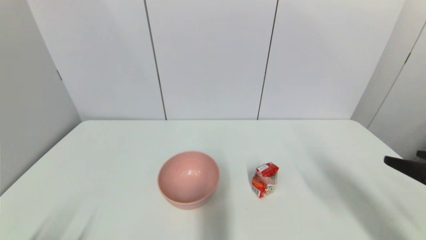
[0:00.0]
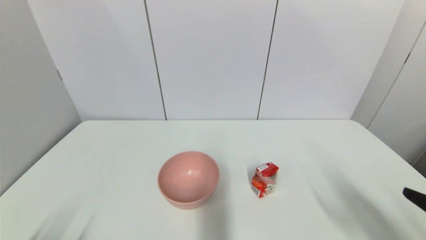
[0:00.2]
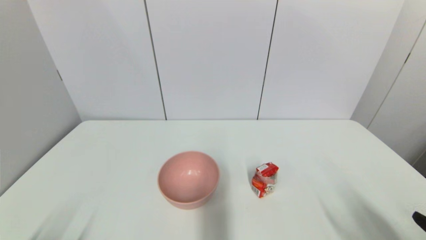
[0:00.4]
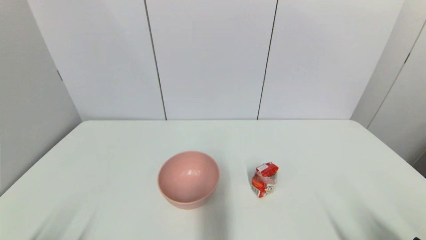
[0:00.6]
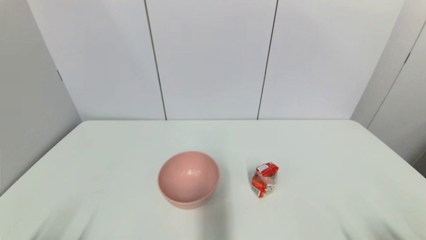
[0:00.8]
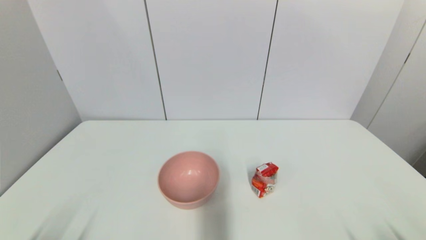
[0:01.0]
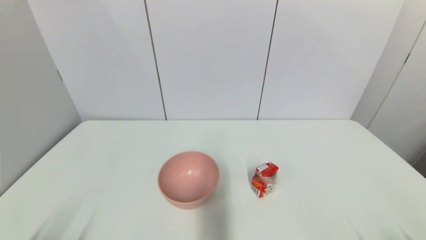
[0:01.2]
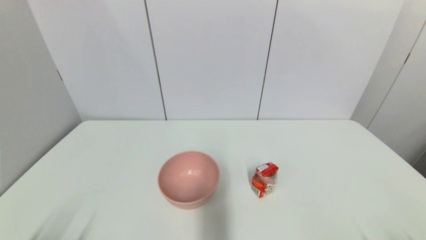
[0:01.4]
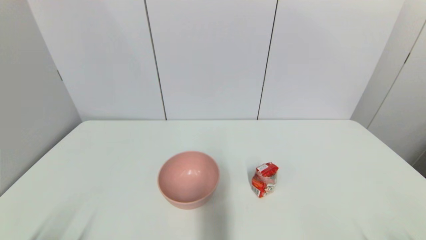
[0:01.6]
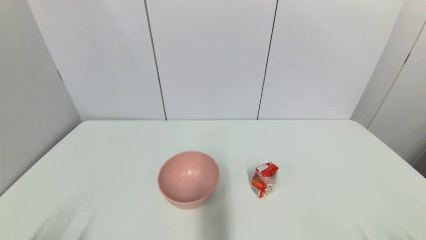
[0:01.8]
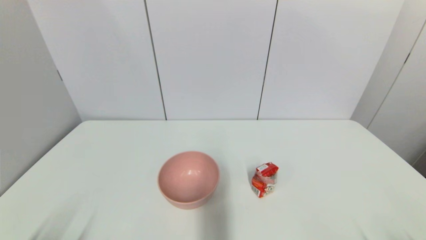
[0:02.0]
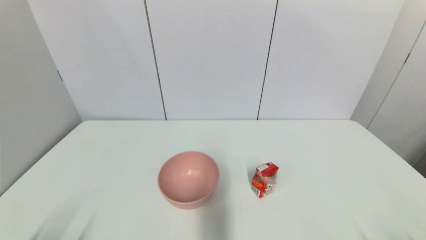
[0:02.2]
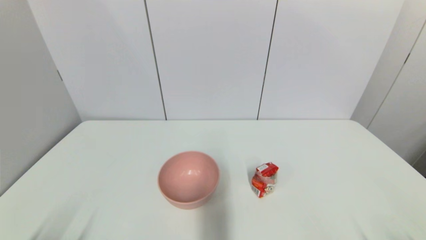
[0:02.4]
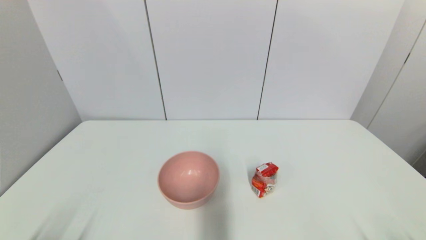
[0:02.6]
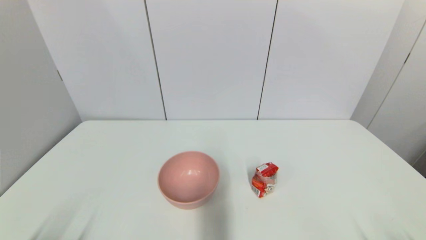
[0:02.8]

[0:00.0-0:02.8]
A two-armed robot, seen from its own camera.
0:00.0 to 0:01.4: The right gripper goes about 20 cm downward and backward.
0:01.4 to 0:02.8: Neither gripper changes place.
